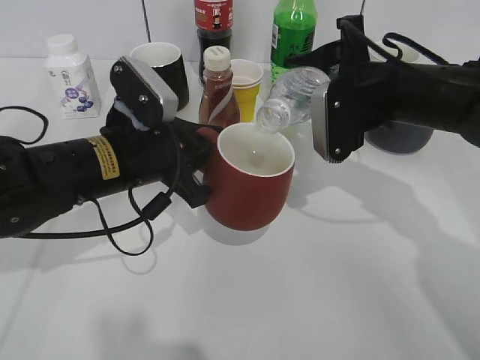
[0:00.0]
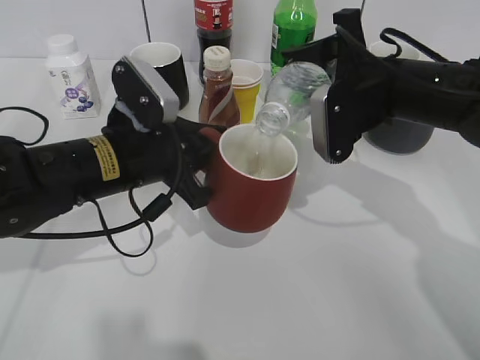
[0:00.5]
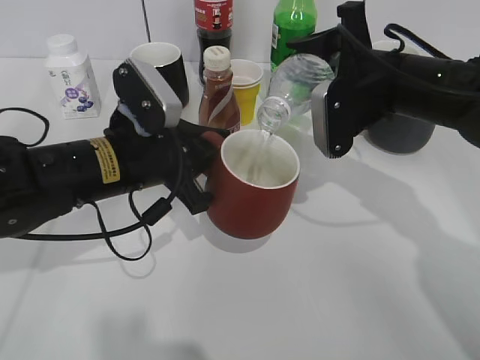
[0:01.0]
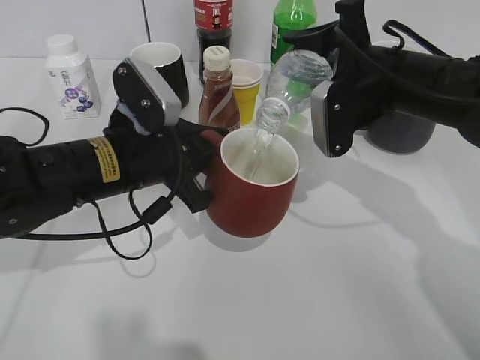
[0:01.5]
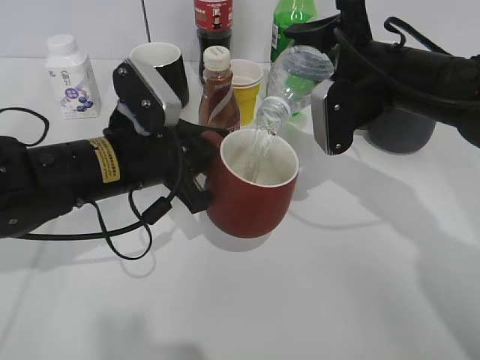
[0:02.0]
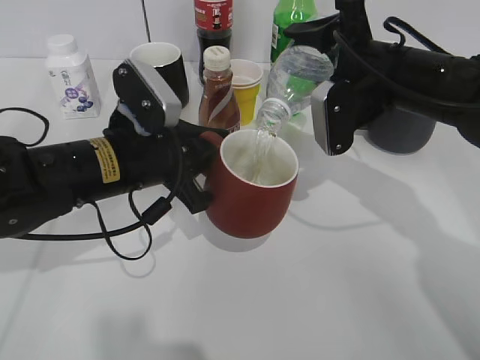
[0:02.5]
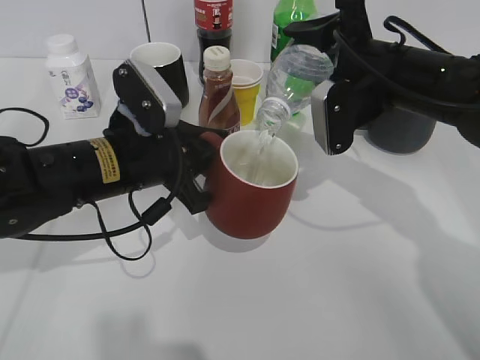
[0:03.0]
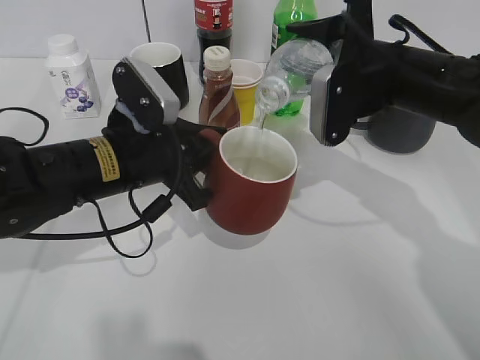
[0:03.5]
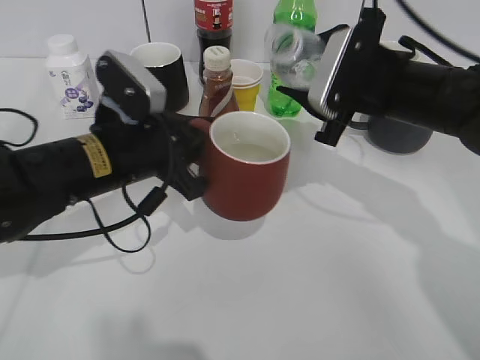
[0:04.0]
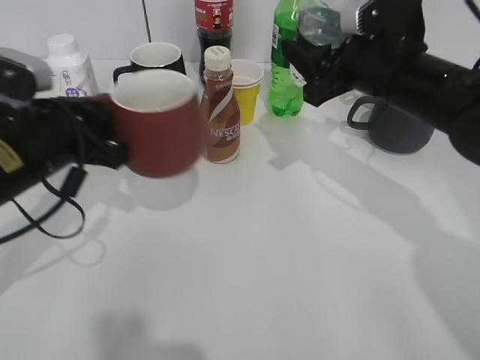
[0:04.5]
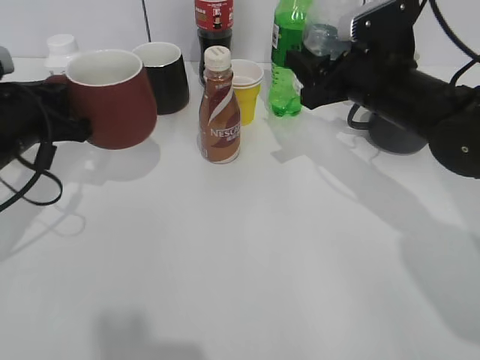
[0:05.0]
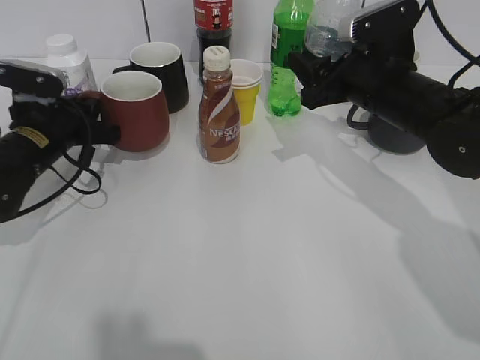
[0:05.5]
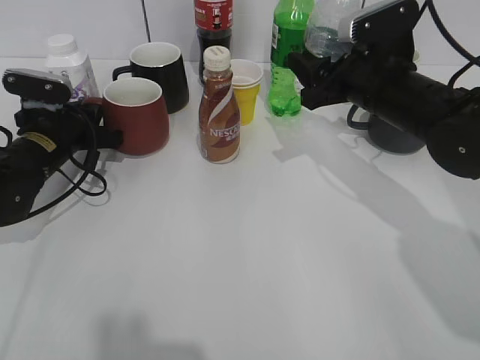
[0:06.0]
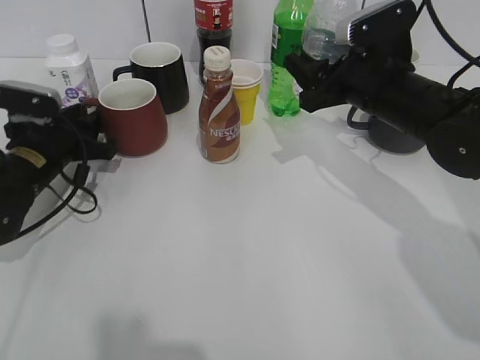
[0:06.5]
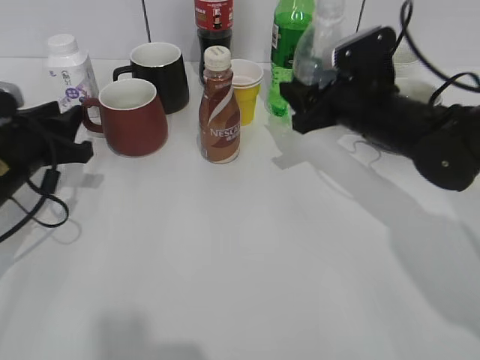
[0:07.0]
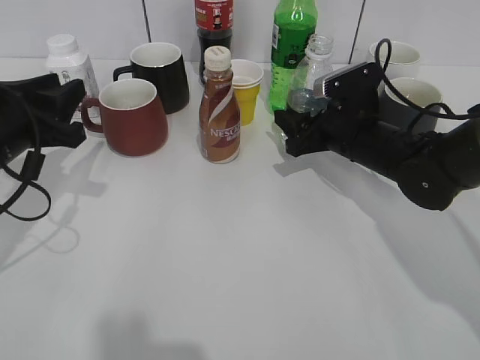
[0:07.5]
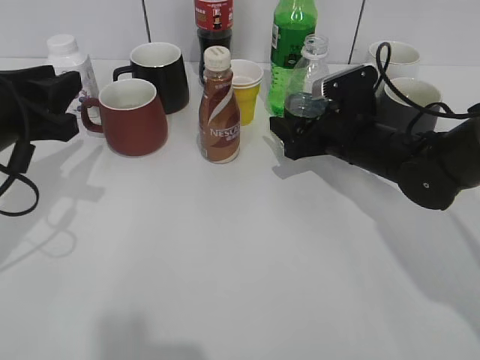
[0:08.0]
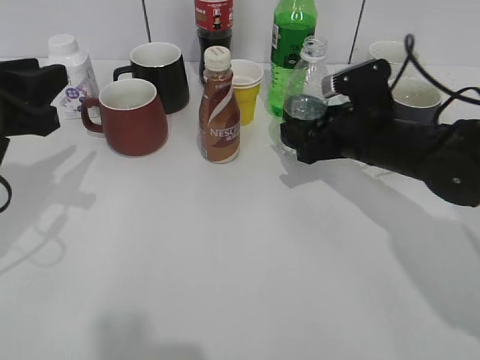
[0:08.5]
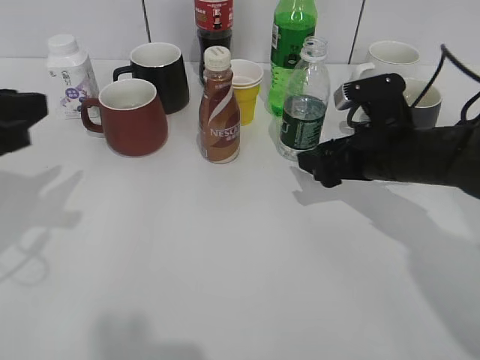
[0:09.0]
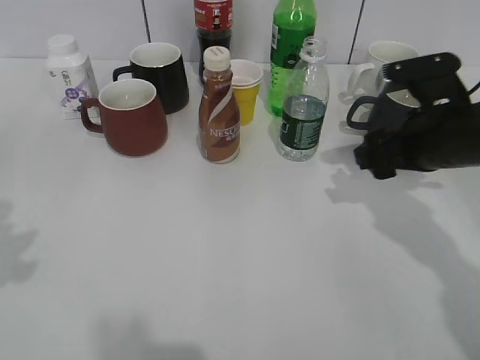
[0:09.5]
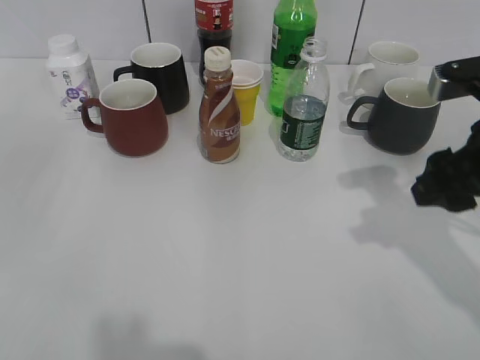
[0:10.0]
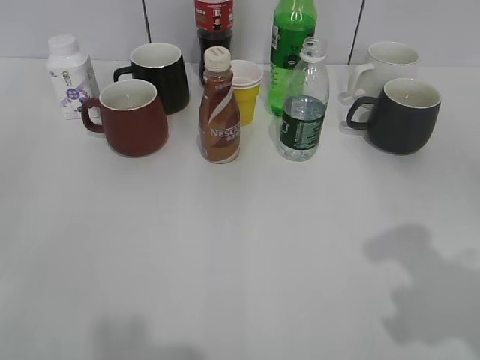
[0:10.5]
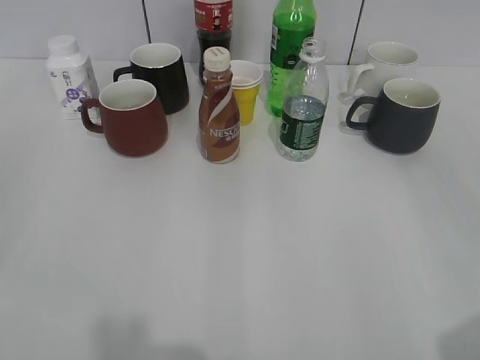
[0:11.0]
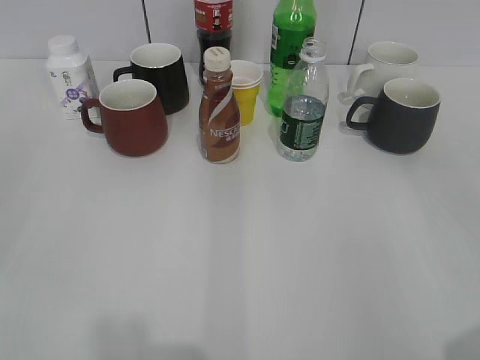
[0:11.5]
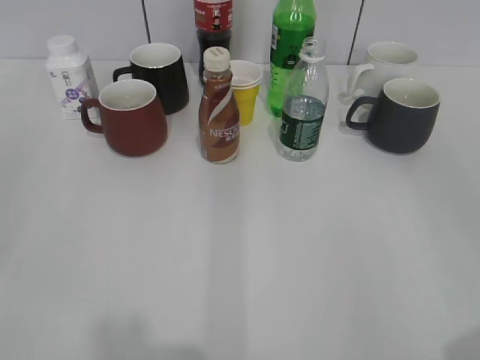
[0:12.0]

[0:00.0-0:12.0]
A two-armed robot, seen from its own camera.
Step, 0:00.0 to 0:03.5: Pour the water from bottle to cup with right gripper.
Step, 0:04.0 to 0:06.5: Place the red cup on the table with left gripper.
Step, 0:07.0 to 0:08.5: Place the water bottle on the table with right gripper.
0:00.0 to 0:02.0: The grippers stay close to where they were, moving slightly.
0:04.0 to 0:06.0: The left gripper heads to the left, forward and downward, covering roughly 15 cm.
0:06.0 to 0:08.0: The right gripper shifts some 10 cm downward, and opens. The left gripper travels backward and upward by roughly 15 cm, and opens up.
0:08.0 to 0:10.0: The right gripper heads backward, upward and to the right, covering about 20 cm, and closes. Meanwhile the left gripper shifts roughly 20 cm backward and upward.
0:10.0 to 0:12.0: The right gripper moves backward, some 25 cm.

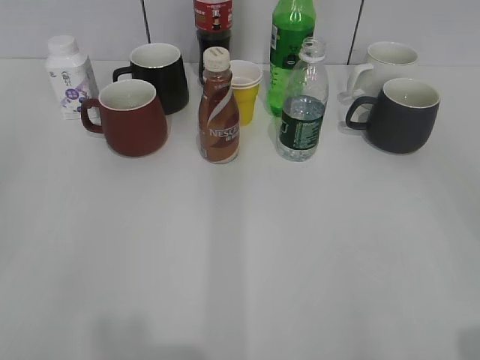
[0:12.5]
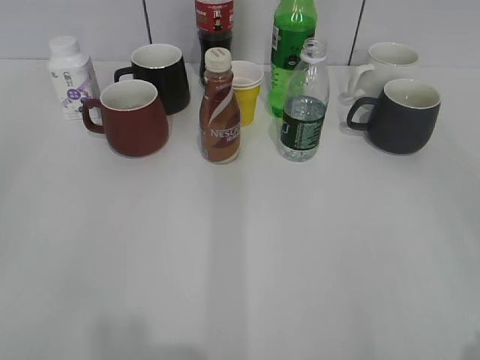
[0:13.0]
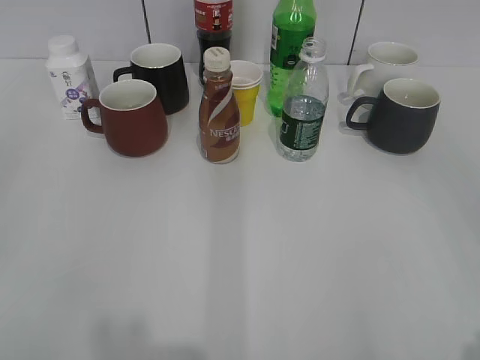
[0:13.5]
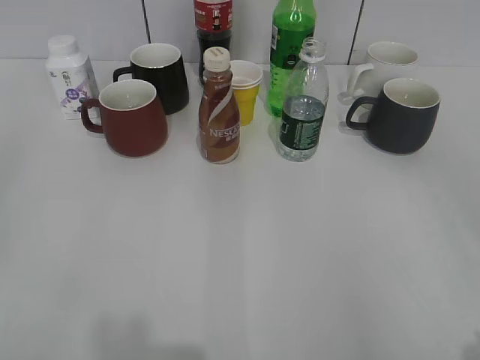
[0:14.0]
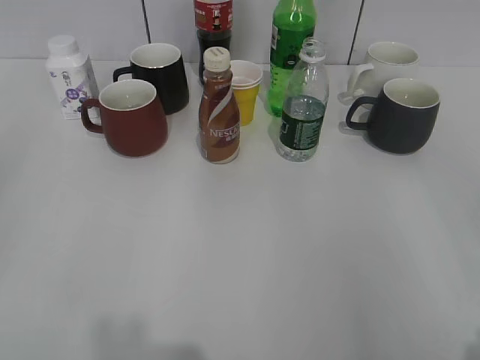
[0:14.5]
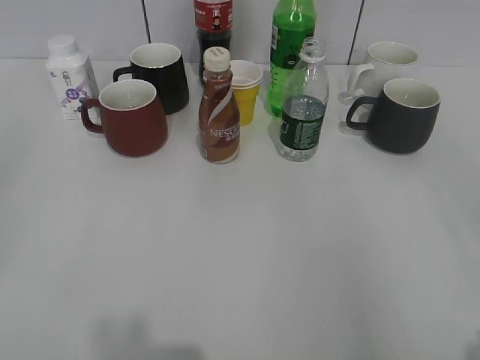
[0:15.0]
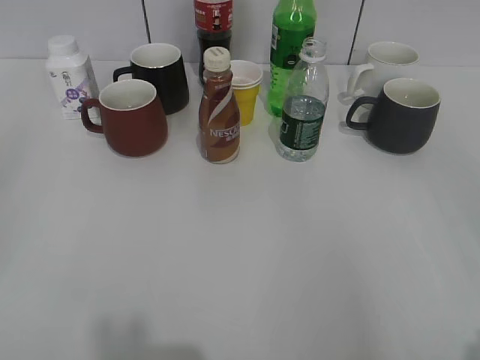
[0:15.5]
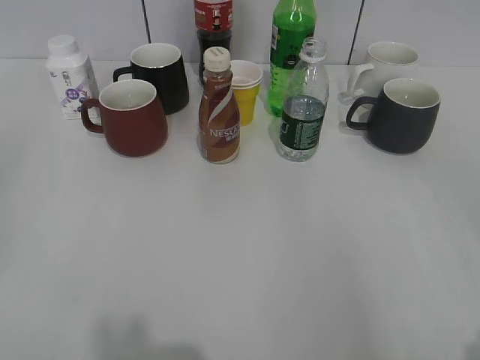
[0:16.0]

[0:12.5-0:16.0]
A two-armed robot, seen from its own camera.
0:12.5 to 0:14.5: The grippers make only small movements.
0:14.5 to 0:16.0: Both grippers stay about where they are.

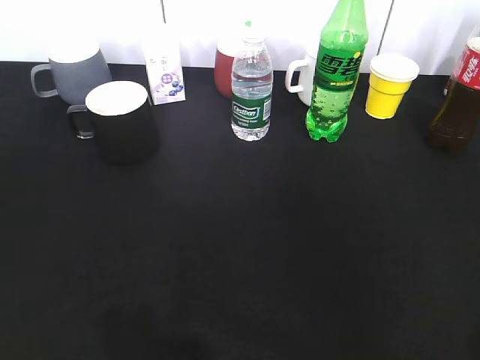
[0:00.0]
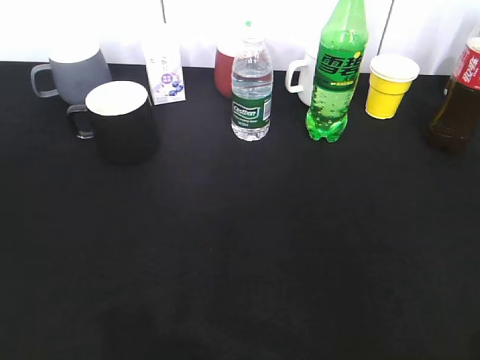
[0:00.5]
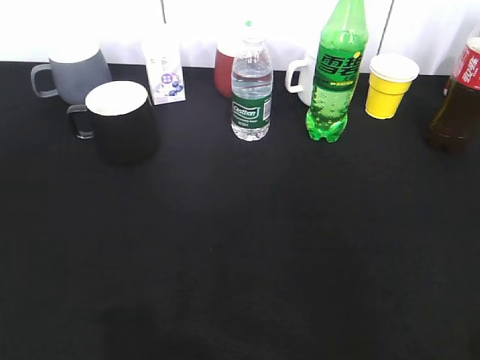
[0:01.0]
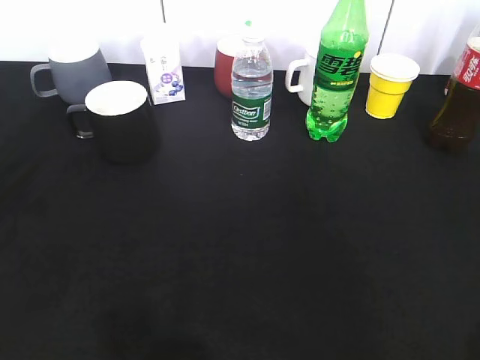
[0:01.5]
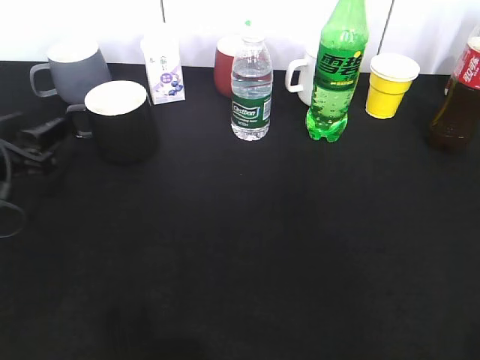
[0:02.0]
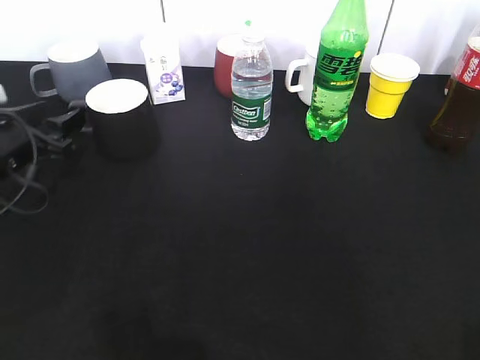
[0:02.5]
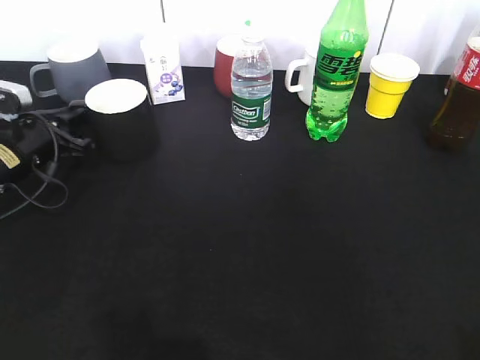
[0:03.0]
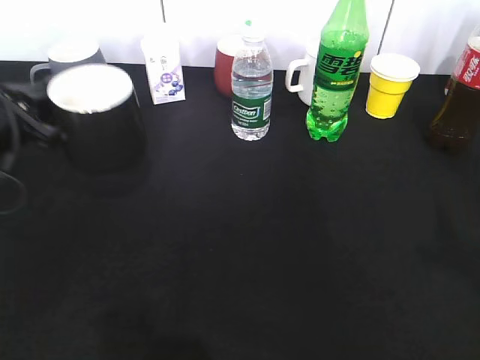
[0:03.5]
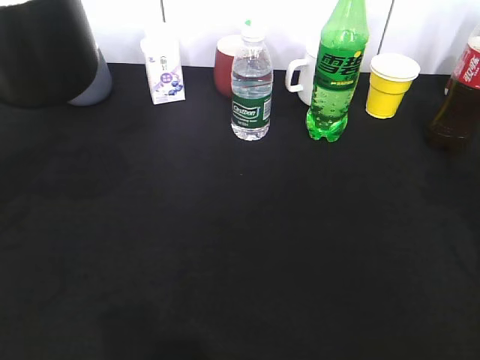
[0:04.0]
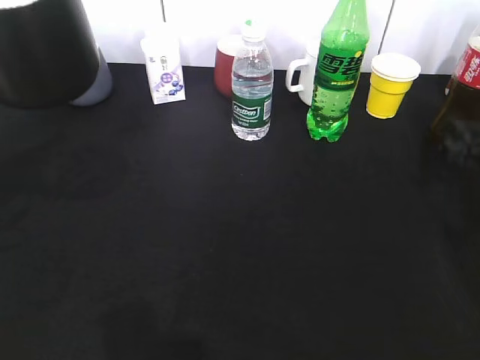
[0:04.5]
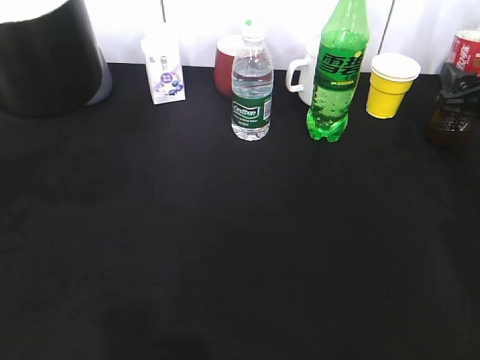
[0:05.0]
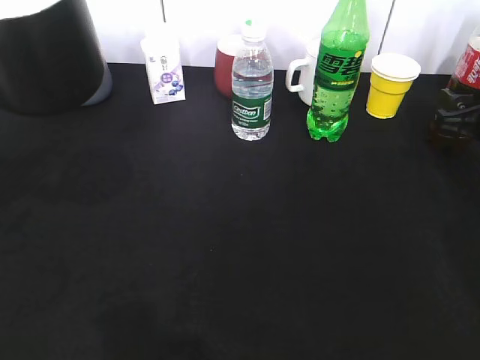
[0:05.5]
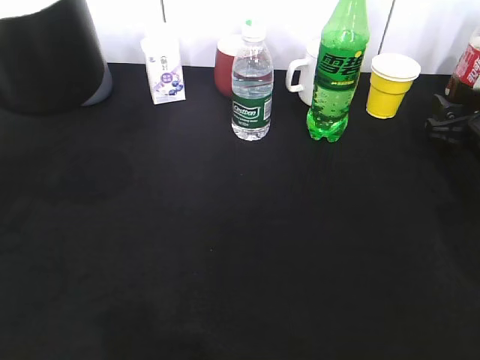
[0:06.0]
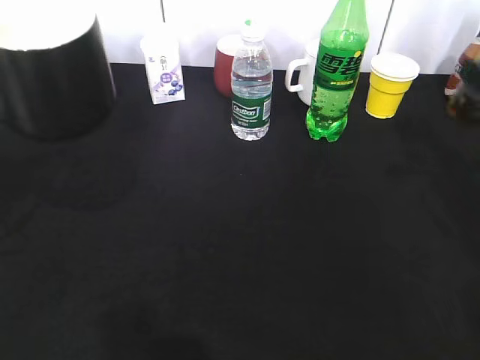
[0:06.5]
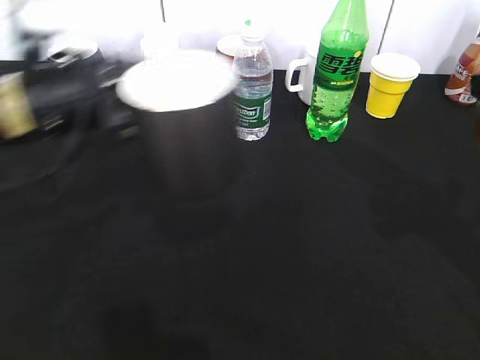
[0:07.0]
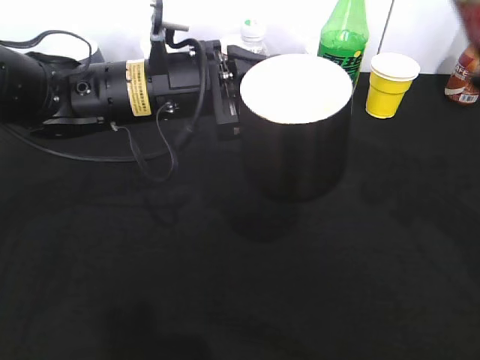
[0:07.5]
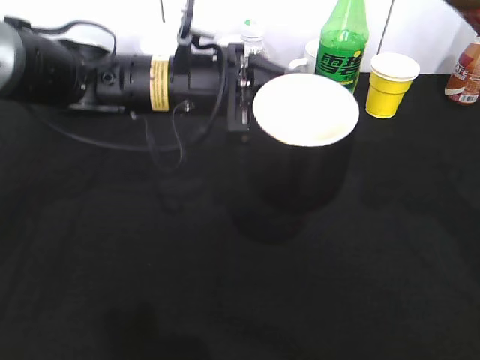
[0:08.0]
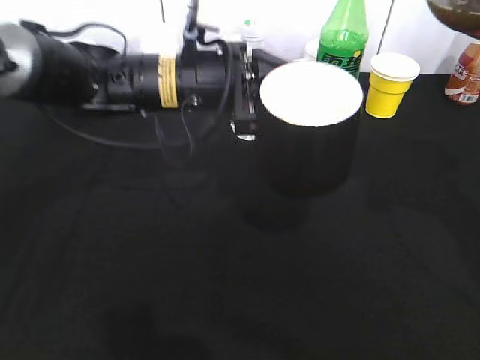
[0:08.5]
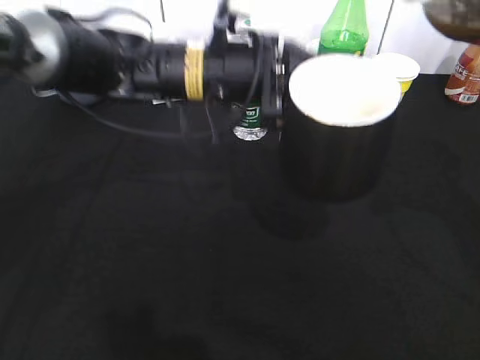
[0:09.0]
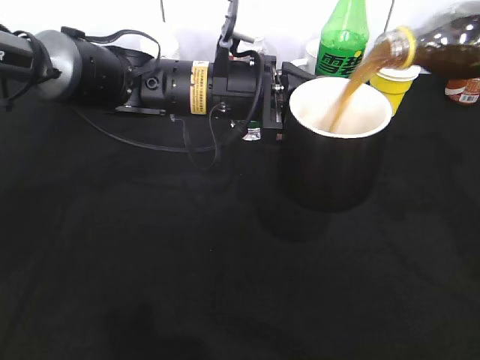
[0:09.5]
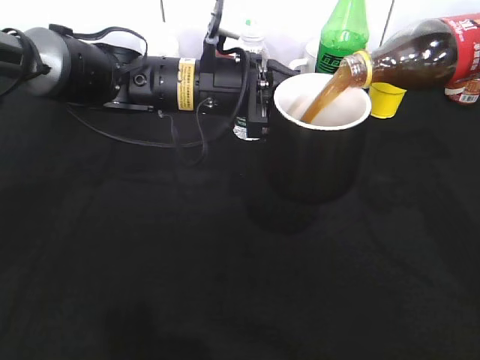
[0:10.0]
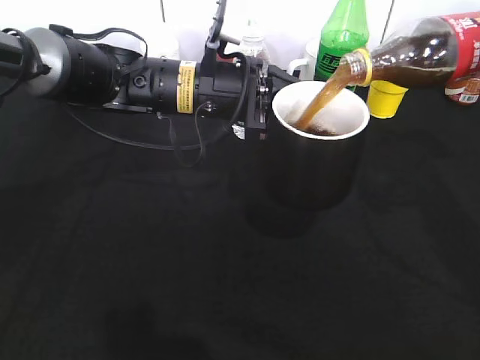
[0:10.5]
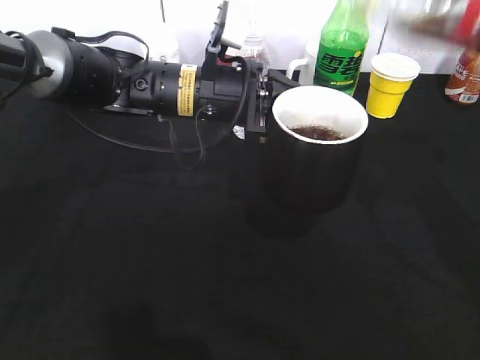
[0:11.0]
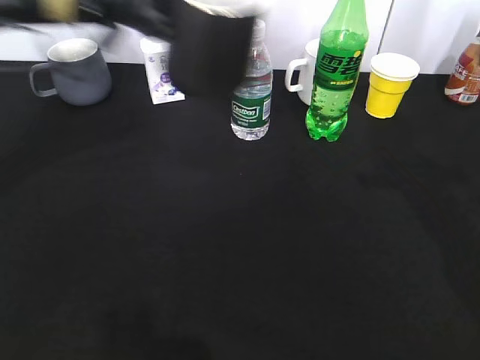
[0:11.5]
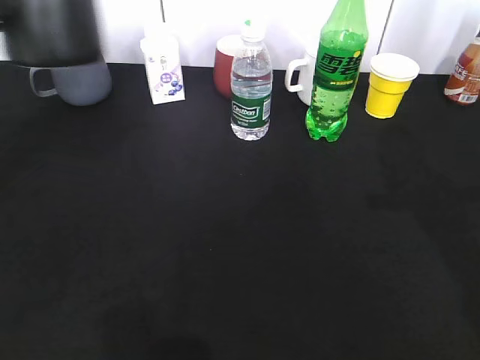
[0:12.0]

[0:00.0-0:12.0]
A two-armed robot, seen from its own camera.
Step, 0:01.0 to 0:03.0: Grasp the black cup with left gripper.
Step, 0:03.5 to 0:04.0: Lift the black cup with left gripper.
Step, 0:04.5 to 0:06.0: Grasp the bottle with cola with right gripper.
Step, 0:06.5 to 0:10.5: Pour the cola from bottle to cup with right gripper.
0:00.0 to 0:02.0: The left gripper goes about 30 cm forward and downward, and opens its fingers.
0:02.0 to 0:04.0: The left gripper shifts approximately 15 cm upward, and closes its fingers.
0:04.0 to 0:06.0: The right gripper is displaced forward and downward by roughly 15 cm, and opens.
0:06.0 to 0:08.0: The right gripper is displaced upward and backward by about 25 cm, and closes. The left gripper shifts approximately 25 cm to the right and forward.
0:10.0 to 0:12.0: The left gripper heads to the left and upward, covering some 25 cm. The right gripper goes about 5 cm backward.
